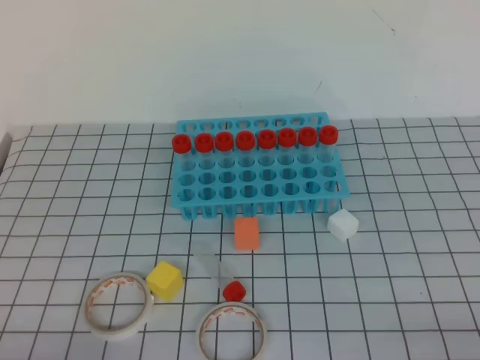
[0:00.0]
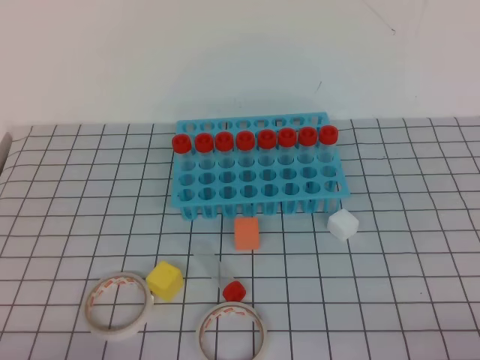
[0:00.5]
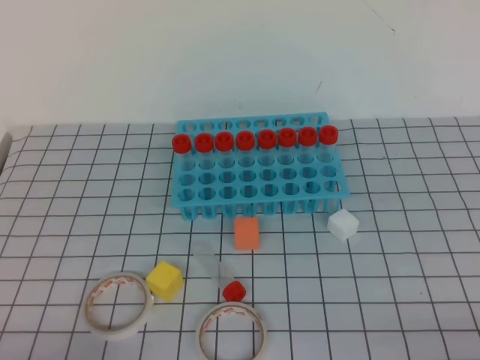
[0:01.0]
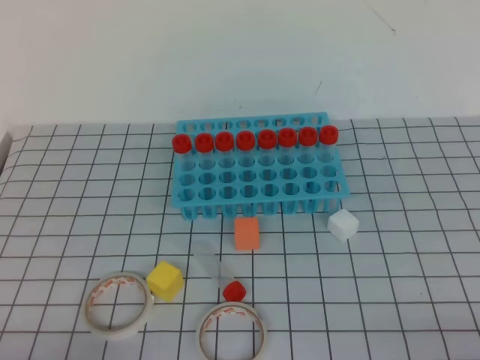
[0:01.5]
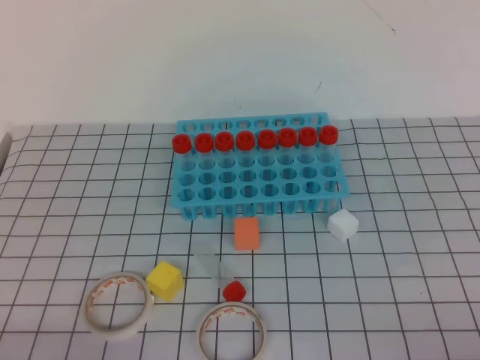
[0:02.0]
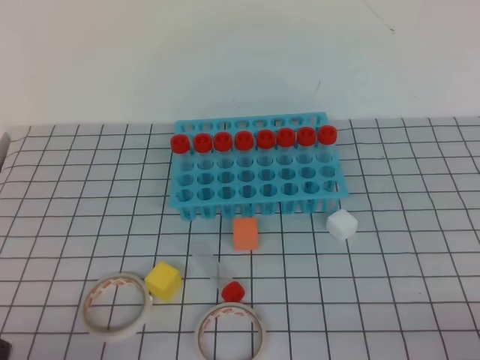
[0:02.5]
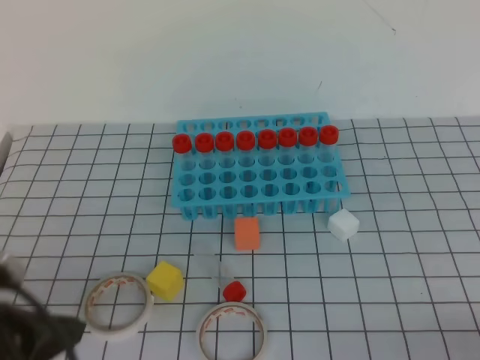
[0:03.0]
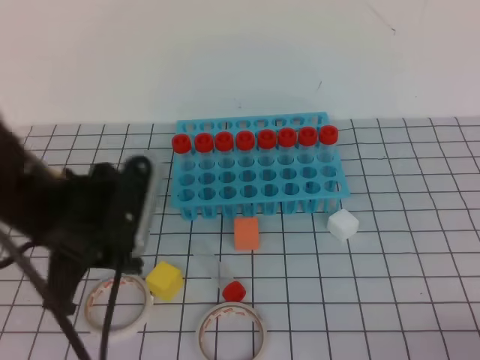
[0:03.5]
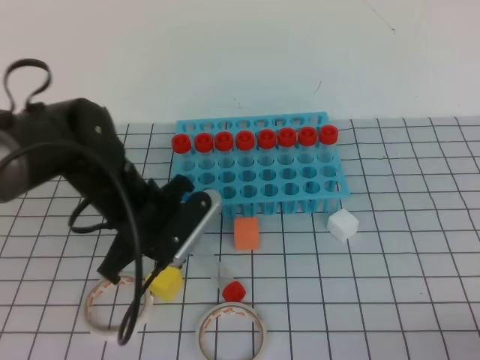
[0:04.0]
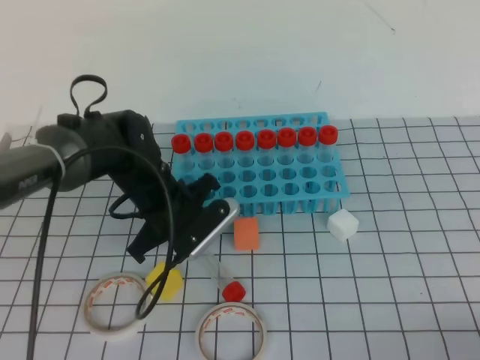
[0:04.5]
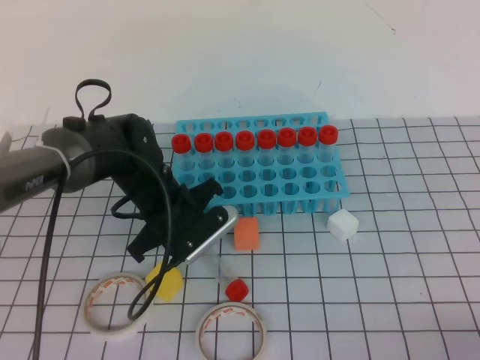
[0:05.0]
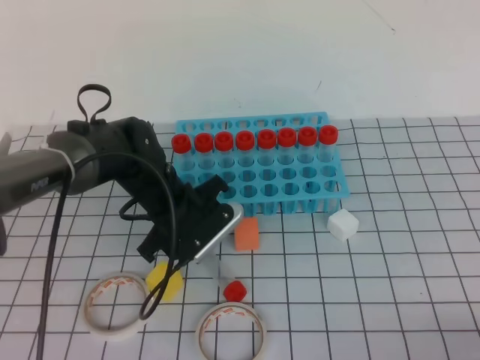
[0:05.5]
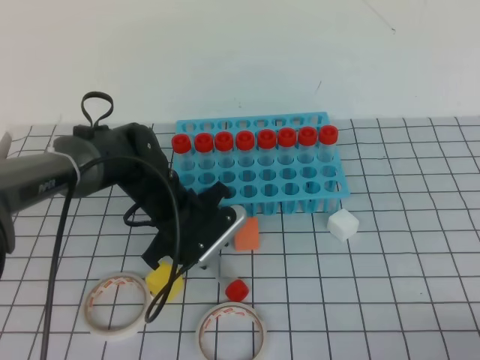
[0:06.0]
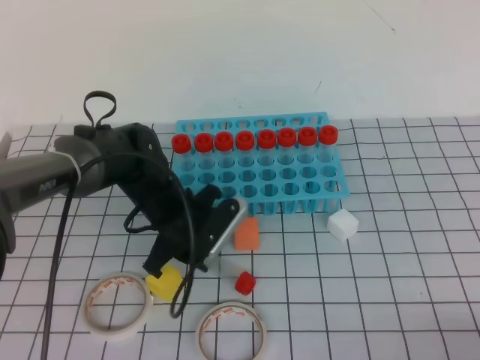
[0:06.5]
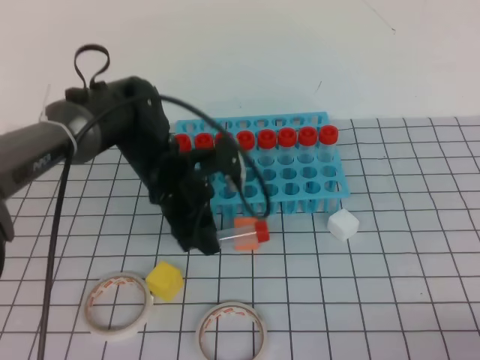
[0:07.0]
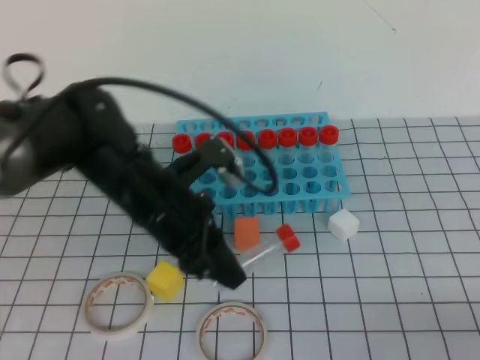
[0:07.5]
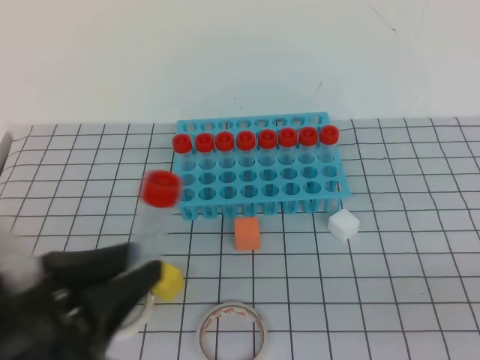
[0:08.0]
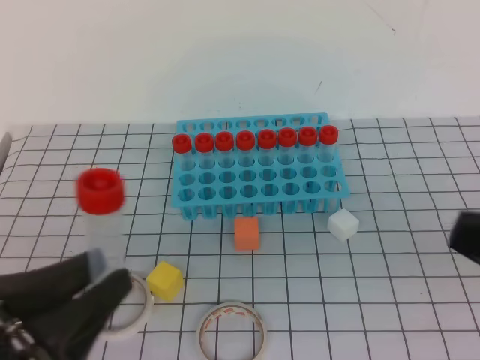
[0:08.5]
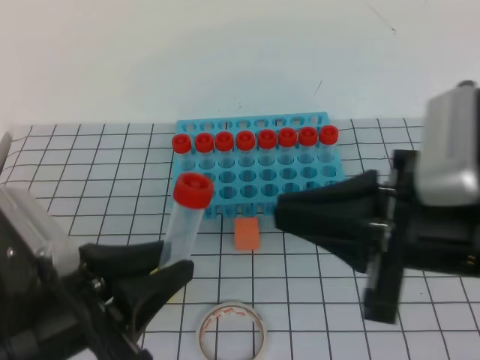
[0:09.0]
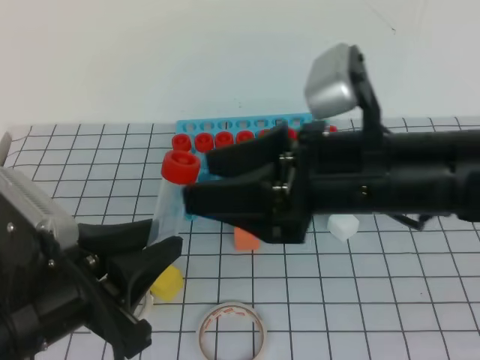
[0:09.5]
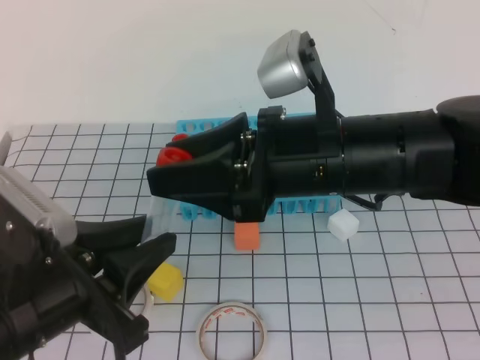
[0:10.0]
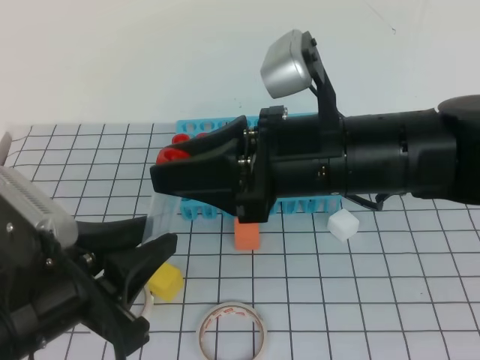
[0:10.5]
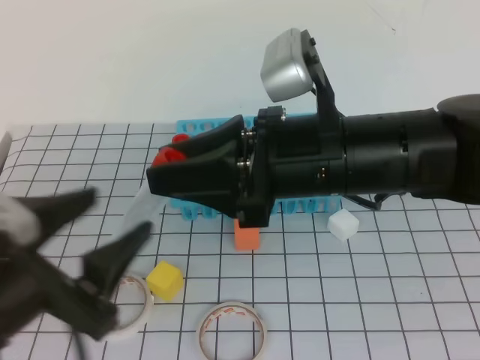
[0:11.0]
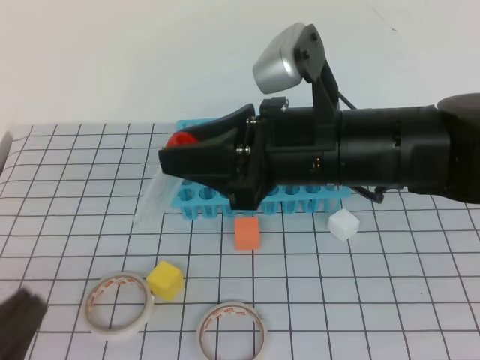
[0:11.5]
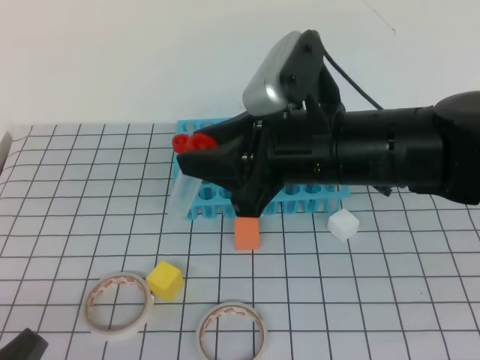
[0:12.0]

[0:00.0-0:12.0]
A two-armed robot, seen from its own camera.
2.0 to 4.0 s: The left gripper moves forward and to the right, approximately 30 cm.
4.0 to 6.0 s: The left gripper shifts approximately 10 cm downward and forward, and opens up.
6.0 to 8.0 s: The left gripper goes about 30 cm backward and upward, and closes. Meanwhile the right gripper shifts about 5 cm upward.
8.0 to 10.0 s: The right gripper shifts some 30 cm to the left and forward, and opens its fingers.
10.0 to 12.0 s: The left gripper is displaced backward, to the left and downward by roughly 15 cm, and closes up.

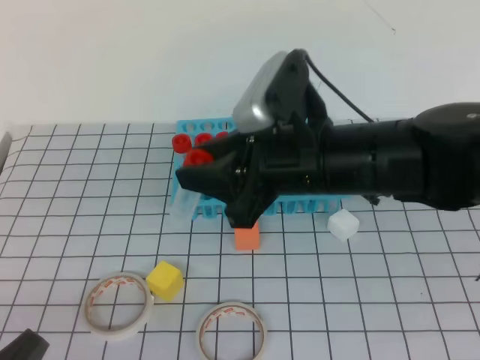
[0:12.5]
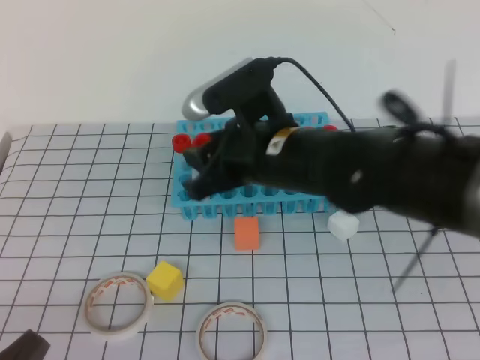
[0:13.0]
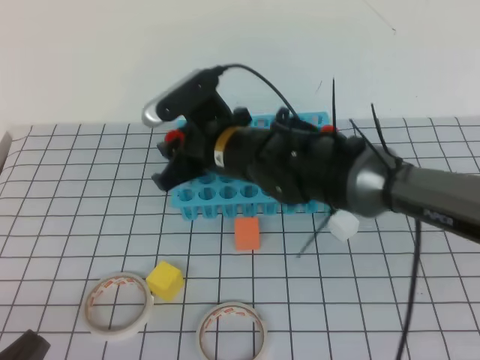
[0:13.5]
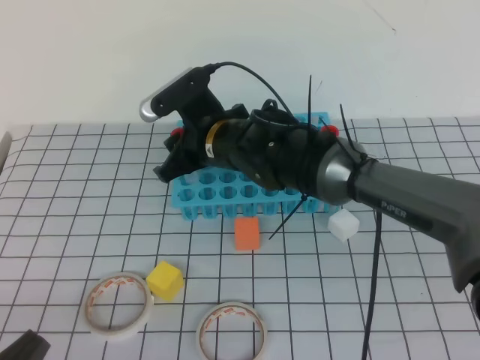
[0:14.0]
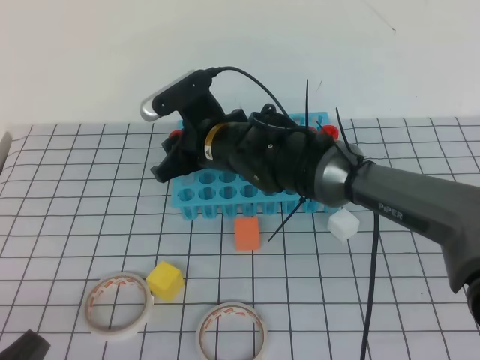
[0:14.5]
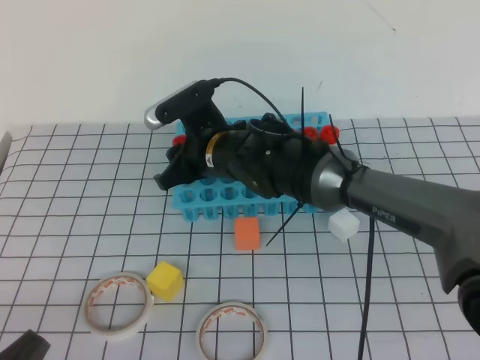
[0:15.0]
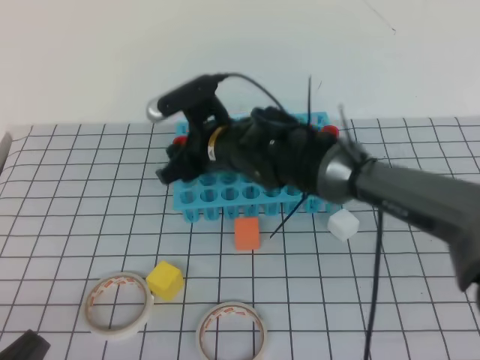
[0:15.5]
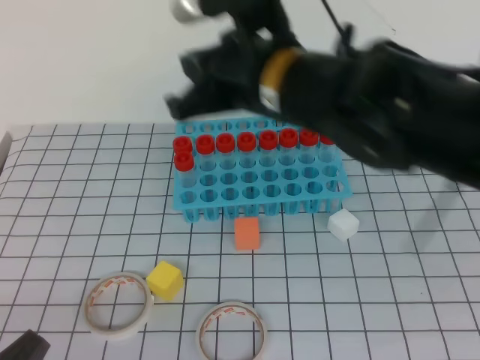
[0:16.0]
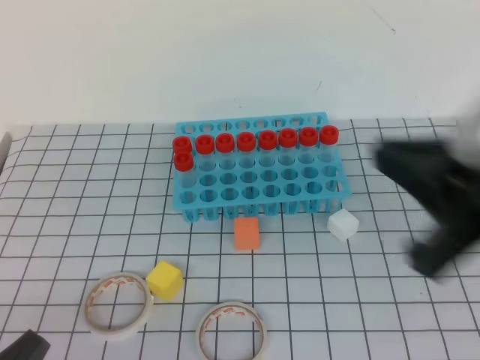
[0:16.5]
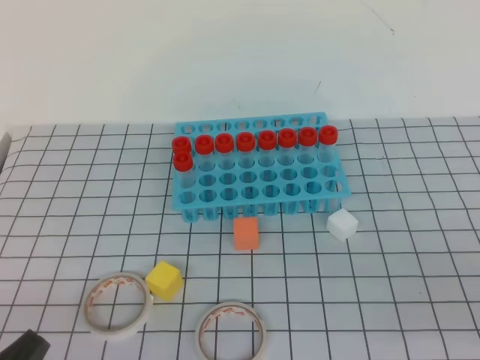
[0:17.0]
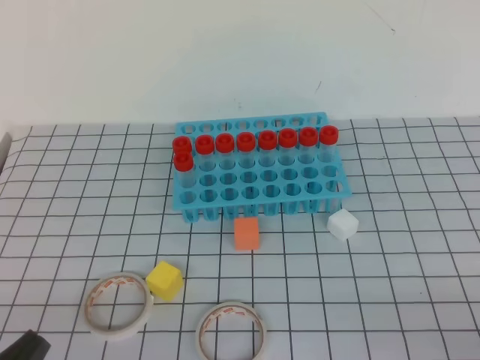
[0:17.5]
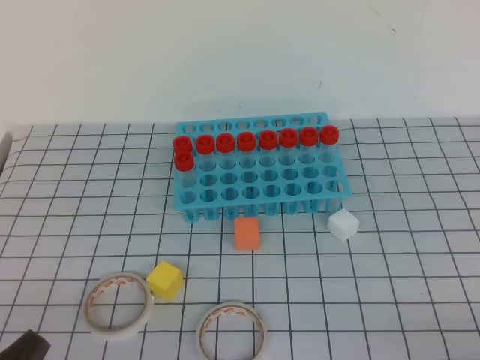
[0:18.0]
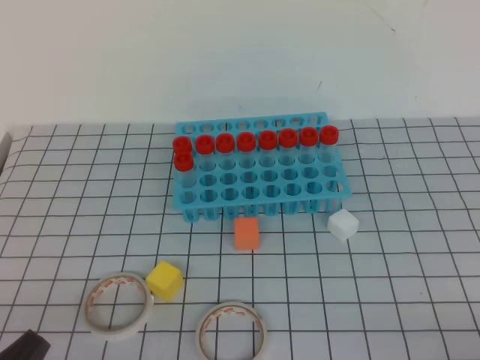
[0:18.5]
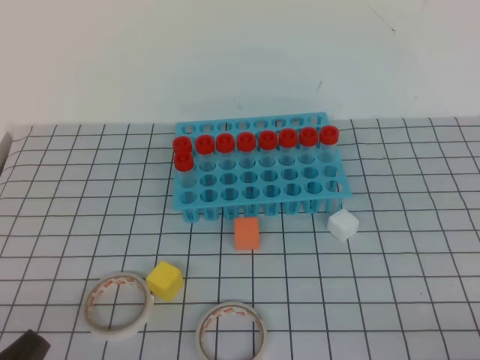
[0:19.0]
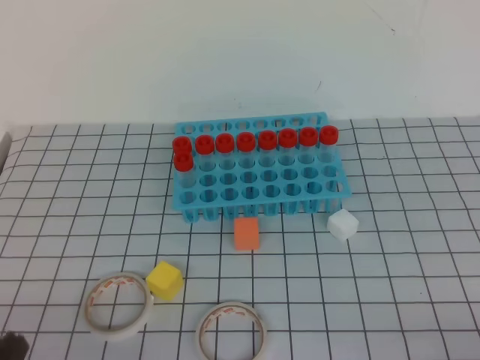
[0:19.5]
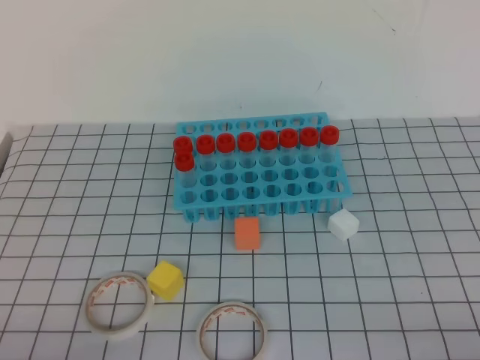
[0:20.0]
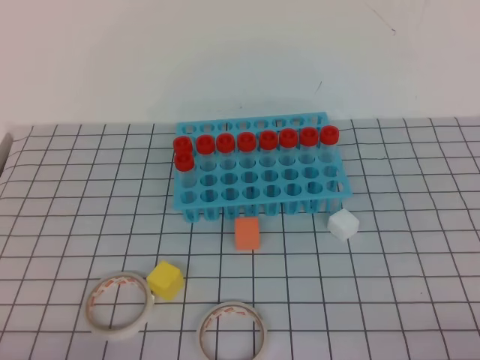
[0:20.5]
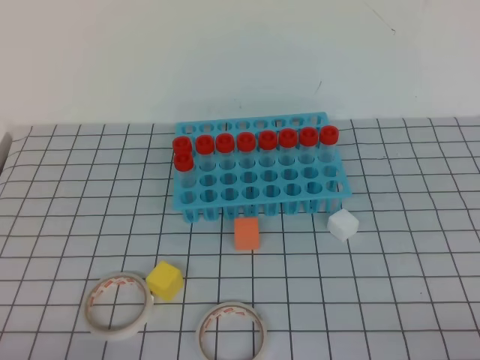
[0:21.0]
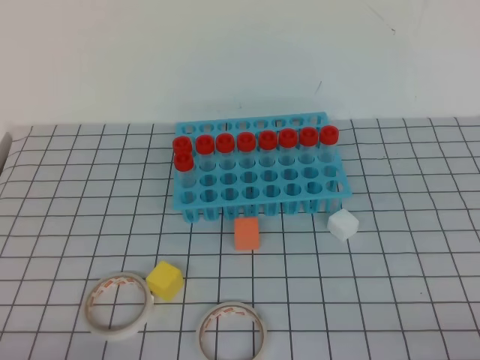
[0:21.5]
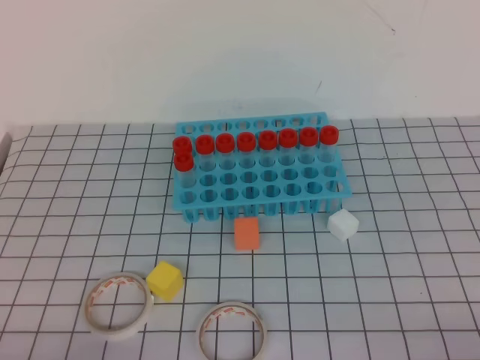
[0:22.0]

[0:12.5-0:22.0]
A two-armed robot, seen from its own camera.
12.5 to 14.5 s: The right gripper shifts some 20 cm forward, to the left and downward.
14.5 to 16.5 s: The right gripper shifts roughly 35 cm backward, to the right and upward, and closes.
16.5 to 18.0 s: The right gripper is displaced downward, to the right and backward by roughly 30 cm.

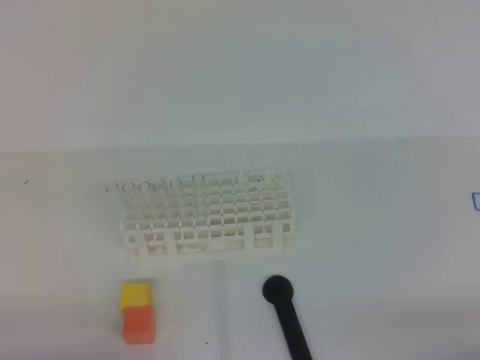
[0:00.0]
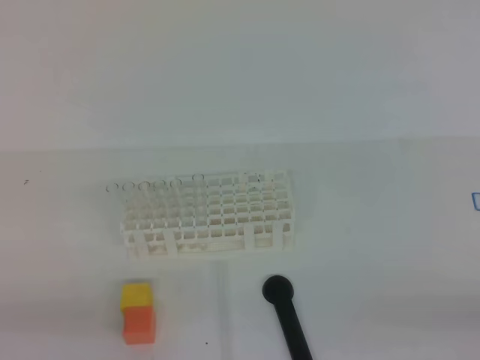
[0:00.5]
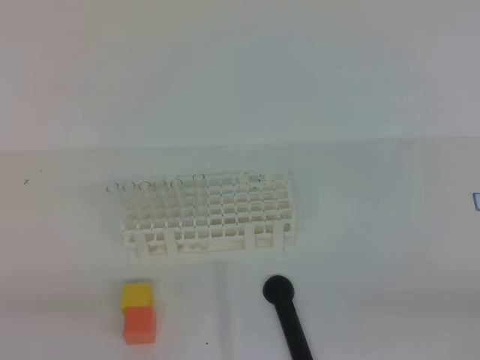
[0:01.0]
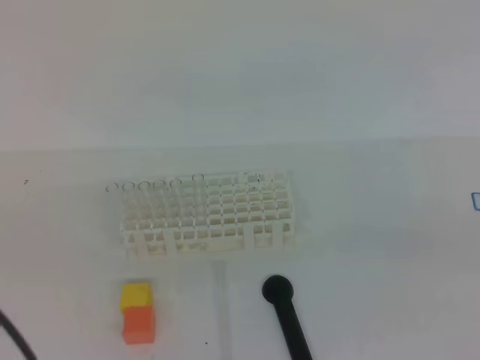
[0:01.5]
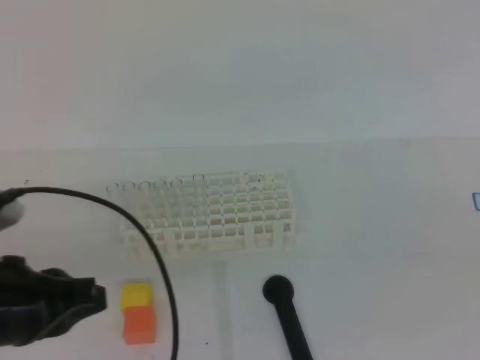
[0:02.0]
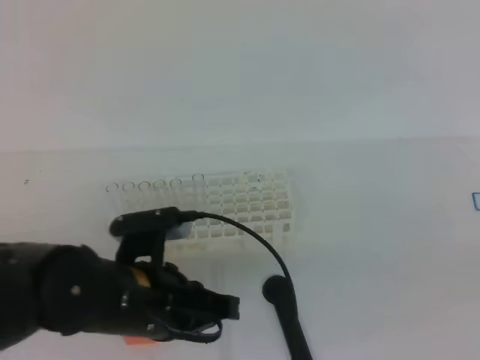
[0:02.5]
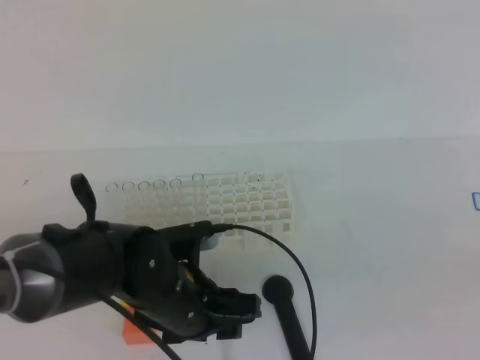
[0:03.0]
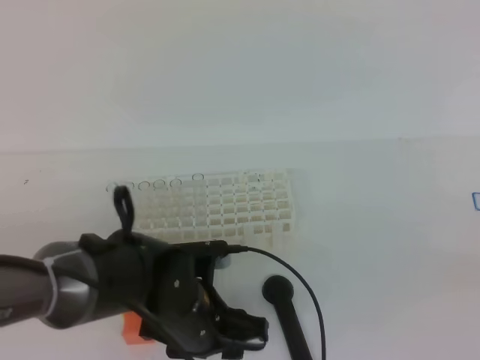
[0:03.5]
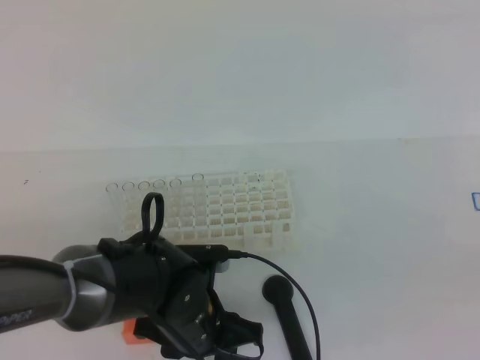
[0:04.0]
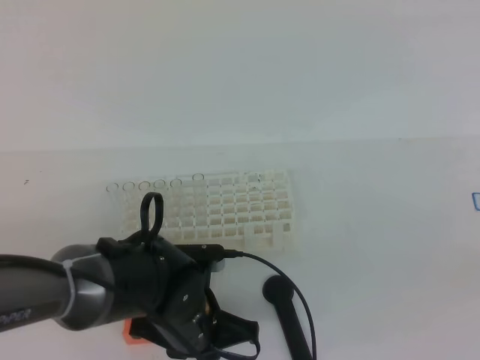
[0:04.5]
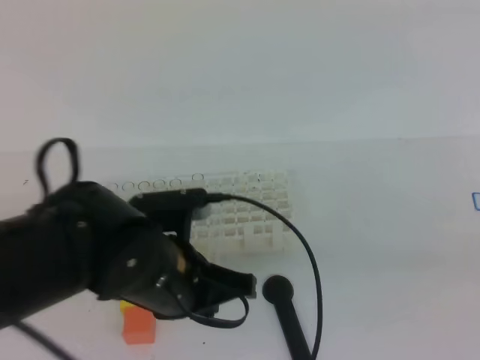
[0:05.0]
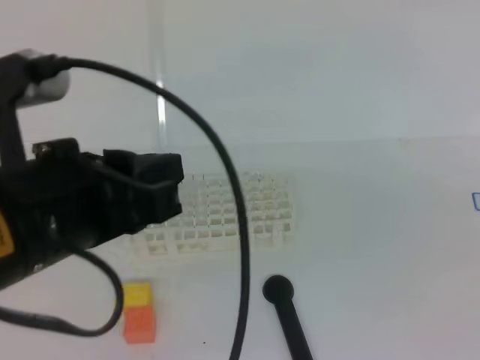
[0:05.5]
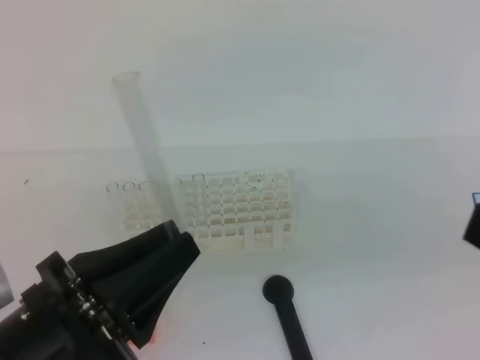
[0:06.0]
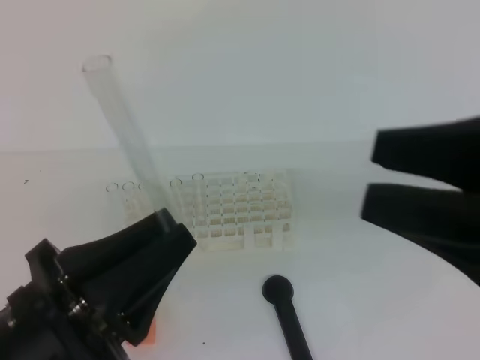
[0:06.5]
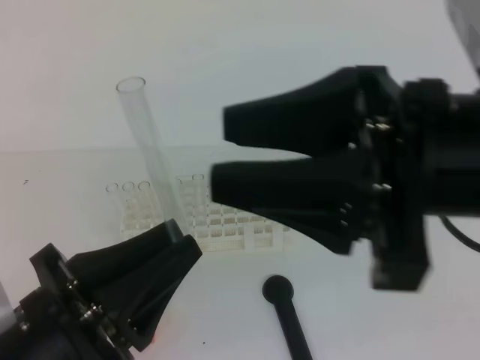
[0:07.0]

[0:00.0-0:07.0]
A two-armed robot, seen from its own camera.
0.0 to 2.0 s: The right gripper travels upward by approximately 15 cm. The left gripper travels forward and upward by about 15 cm.
2.0 to 3.5 s: The left gripper shifts some 20 cm to the right, downward and forward, and opens up.
3.5 to 5.0 s: The left gripper heads upward, covering about 10 cm, and closes.
5.0 to 7.0 s: The right gripper is displaced to the left and forward by roughly 20 cm, and opens up. Meanwhile the left gripper moves backward, to the left and upward, some 15 cm.
